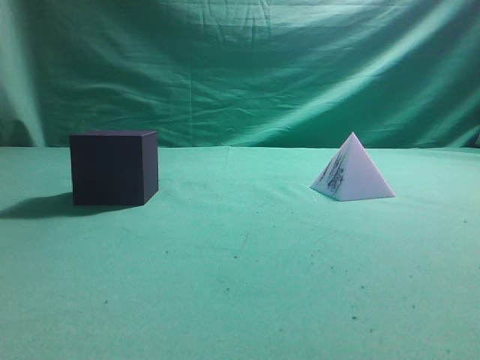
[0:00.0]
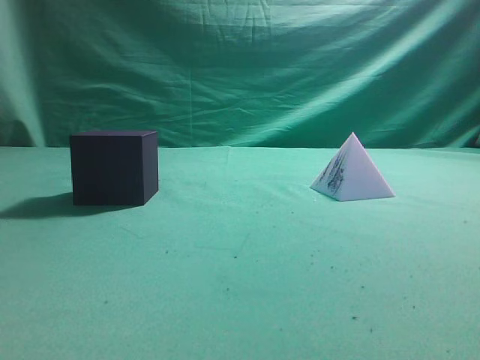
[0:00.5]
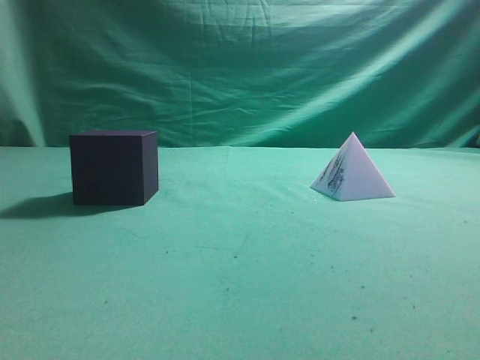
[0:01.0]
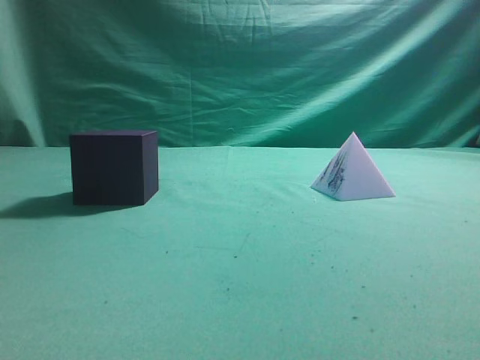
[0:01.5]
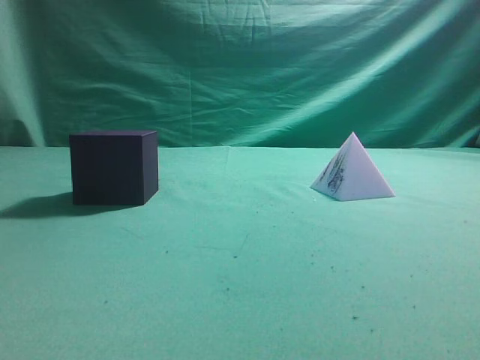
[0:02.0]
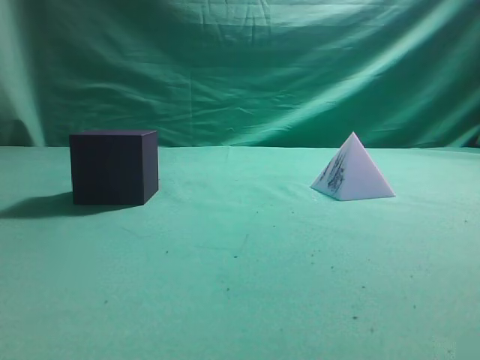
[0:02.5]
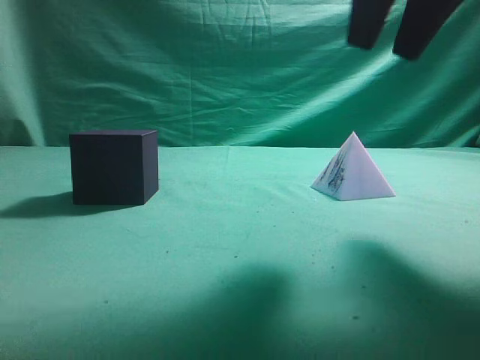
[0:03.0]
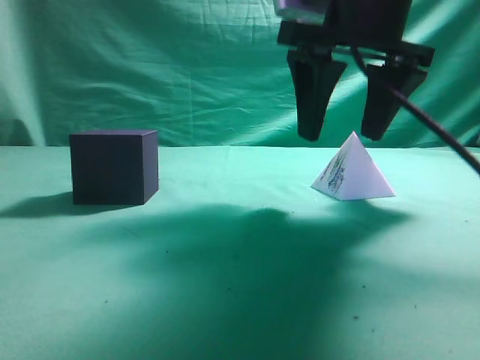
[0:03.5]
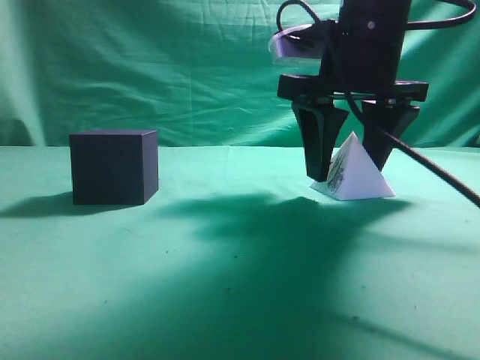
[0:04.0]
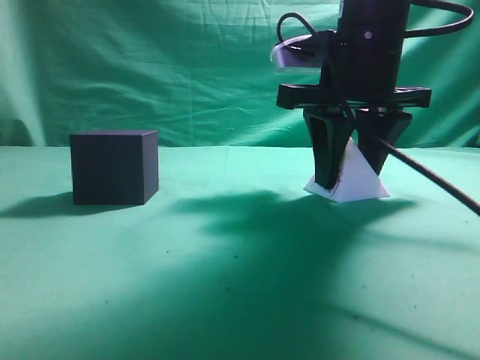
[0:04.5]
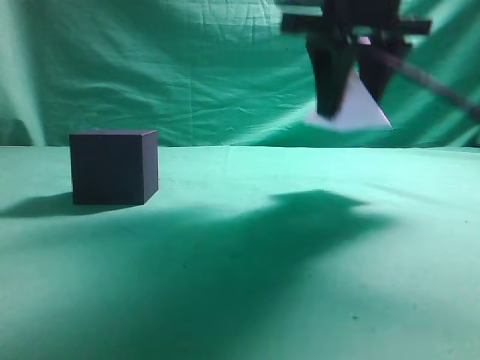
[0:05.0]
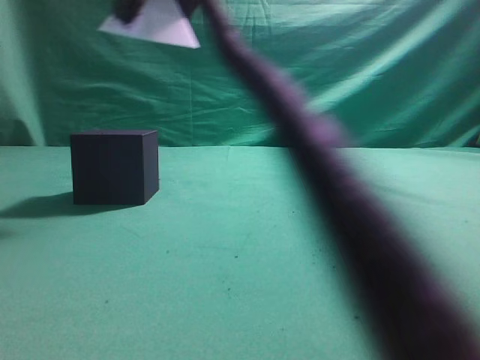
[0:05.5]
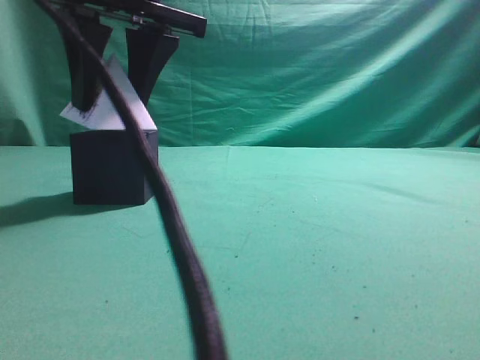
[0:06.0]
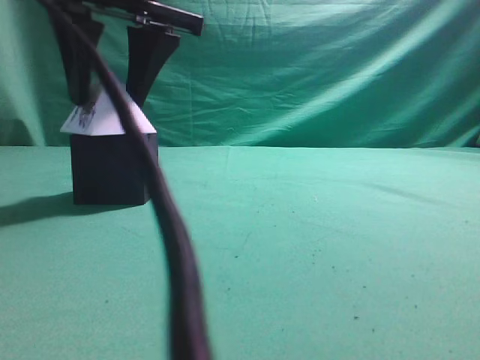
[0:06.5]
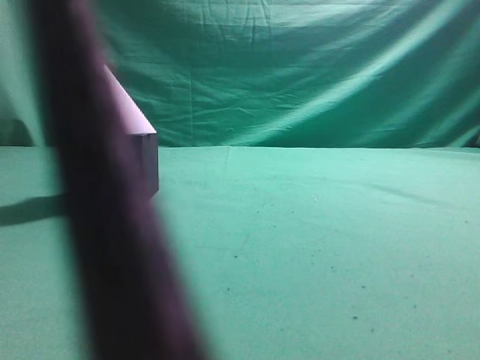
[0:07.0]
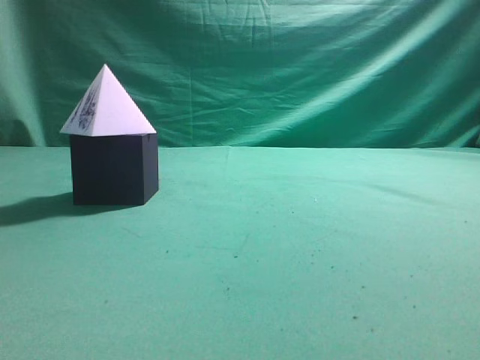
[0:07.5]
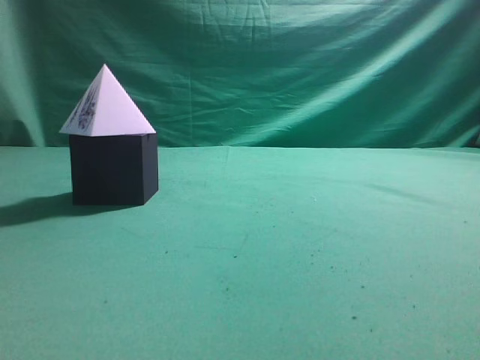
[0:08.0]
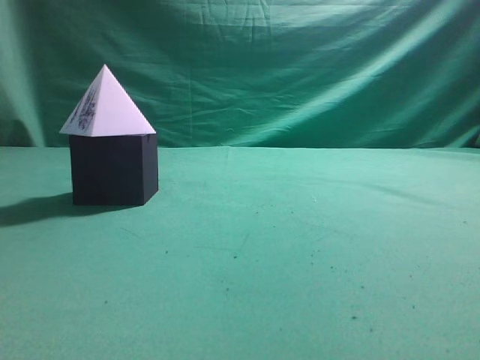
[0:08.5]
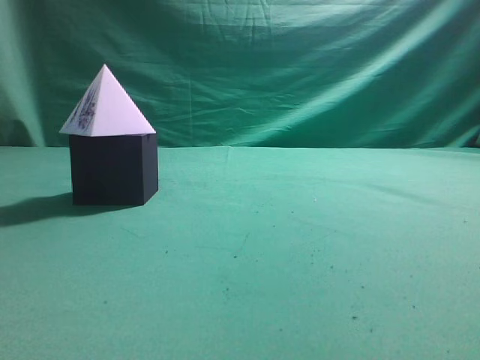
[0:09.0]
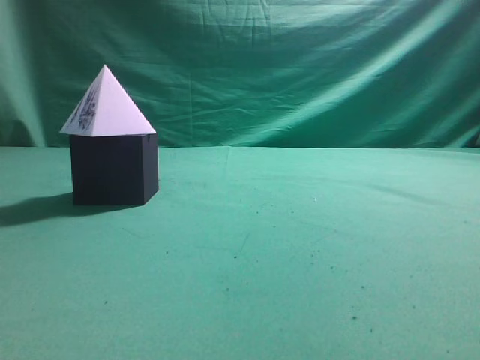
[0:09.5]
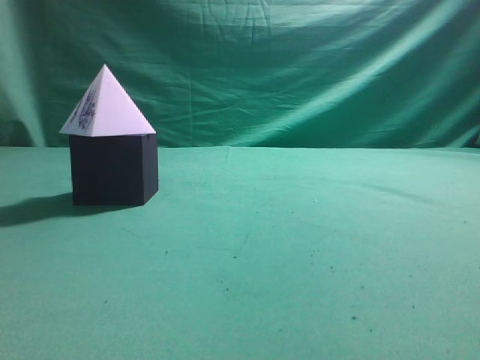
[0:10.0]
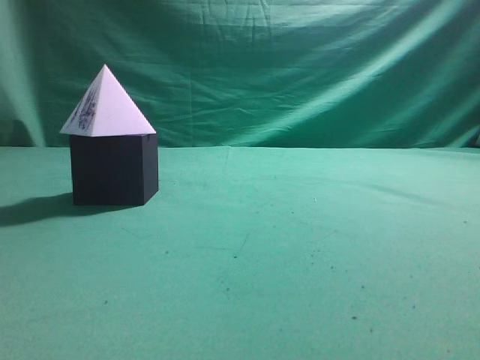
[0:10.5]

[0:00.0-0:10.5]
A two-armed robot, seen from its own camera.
Task of the whole recording: pick up the square pyramid from the table and place it on the cube block.
Step, 0:00.0 to 0:05.0: Grasp the triangular block.
Step, 0:05.5 to 0:06.5: Place the block onto the cube-shaped block.
0:02.0 to 0:04.0: The right gripper travels forward, to the left and downward by about 30 cm, and opens.
0:04.0 to 0:06.5: The right gripper is displaced to the left by roughly 20 cm.
0:06.5 to 0:08.5: The right gripper shifts approximately 40 cm to the right, backward and upward, and closes up.
